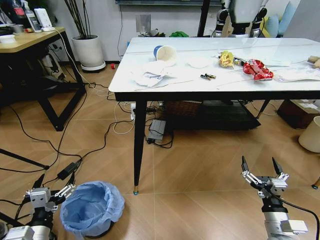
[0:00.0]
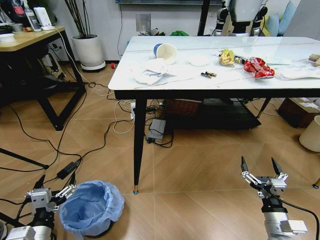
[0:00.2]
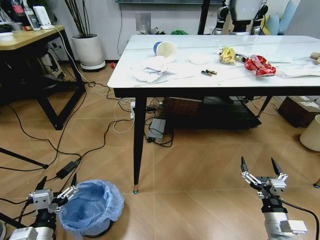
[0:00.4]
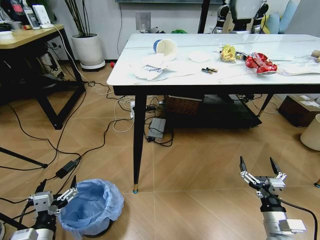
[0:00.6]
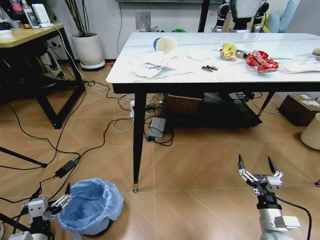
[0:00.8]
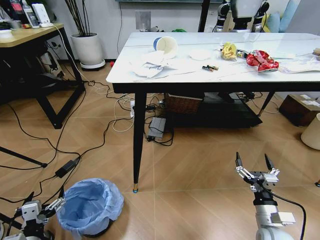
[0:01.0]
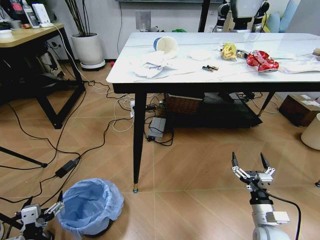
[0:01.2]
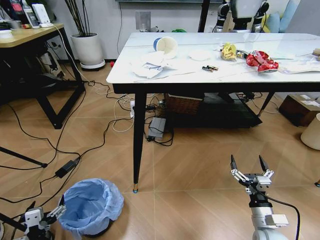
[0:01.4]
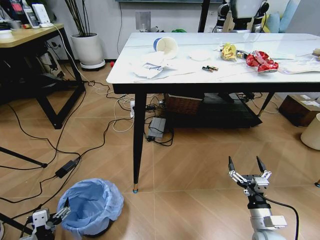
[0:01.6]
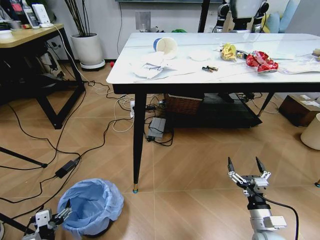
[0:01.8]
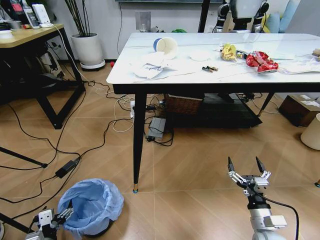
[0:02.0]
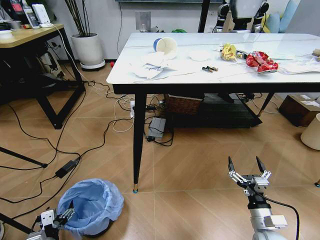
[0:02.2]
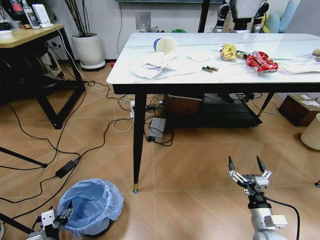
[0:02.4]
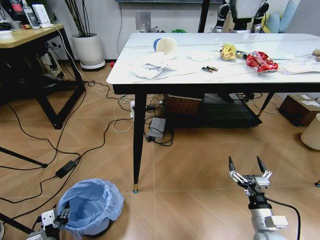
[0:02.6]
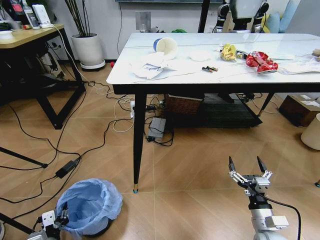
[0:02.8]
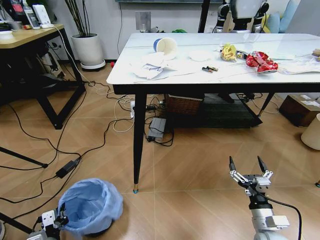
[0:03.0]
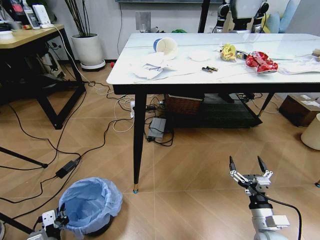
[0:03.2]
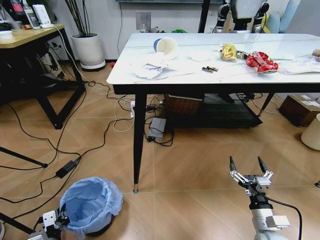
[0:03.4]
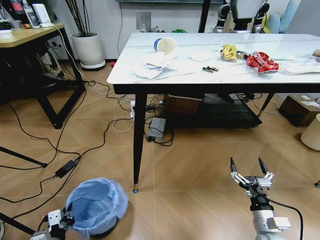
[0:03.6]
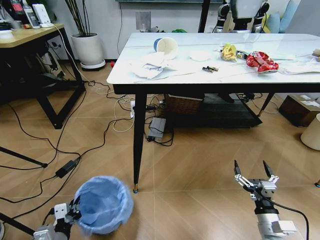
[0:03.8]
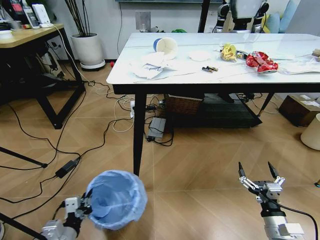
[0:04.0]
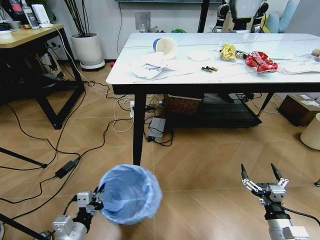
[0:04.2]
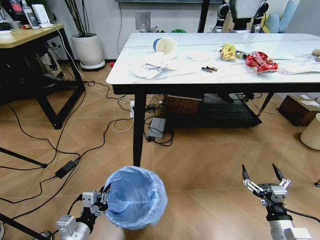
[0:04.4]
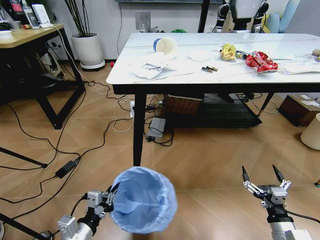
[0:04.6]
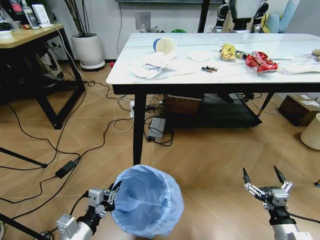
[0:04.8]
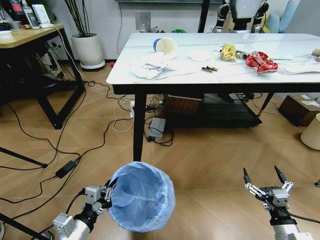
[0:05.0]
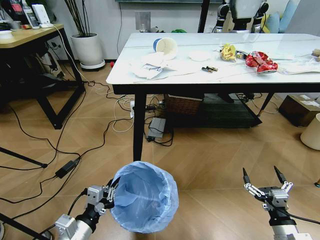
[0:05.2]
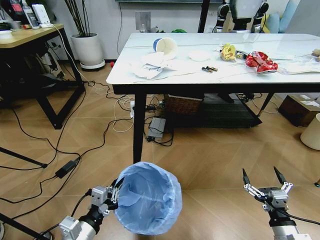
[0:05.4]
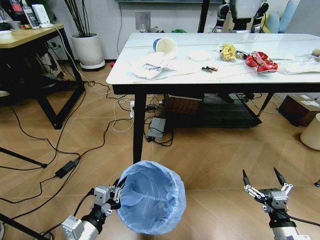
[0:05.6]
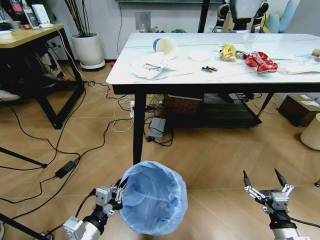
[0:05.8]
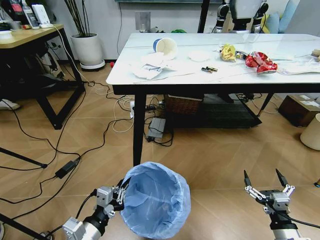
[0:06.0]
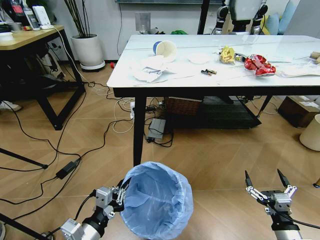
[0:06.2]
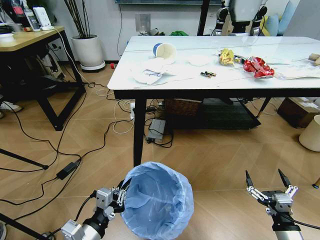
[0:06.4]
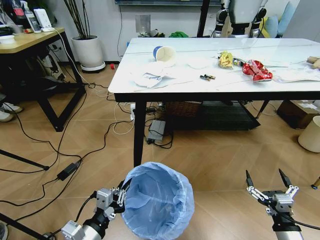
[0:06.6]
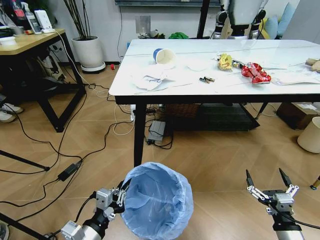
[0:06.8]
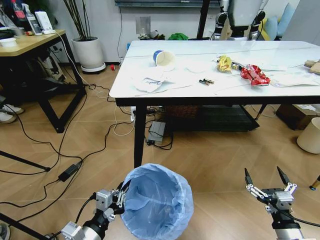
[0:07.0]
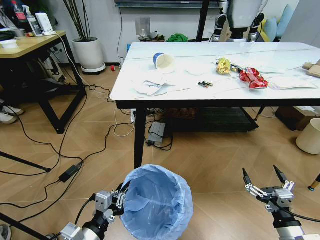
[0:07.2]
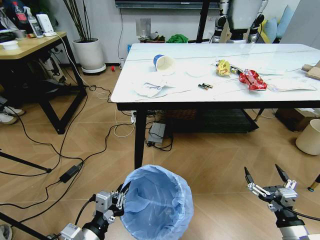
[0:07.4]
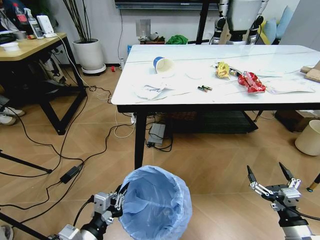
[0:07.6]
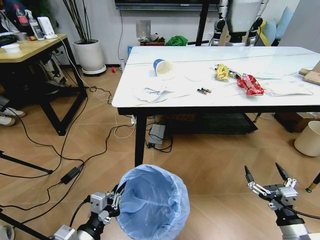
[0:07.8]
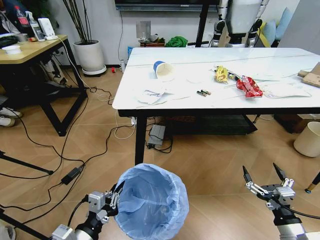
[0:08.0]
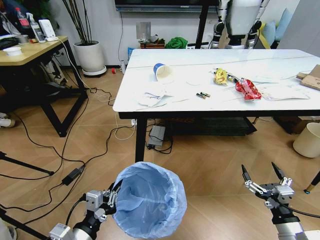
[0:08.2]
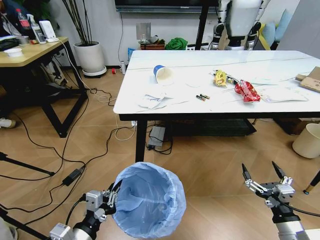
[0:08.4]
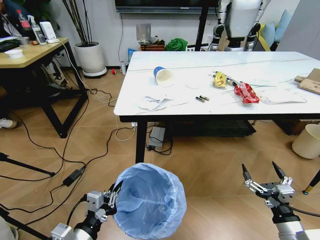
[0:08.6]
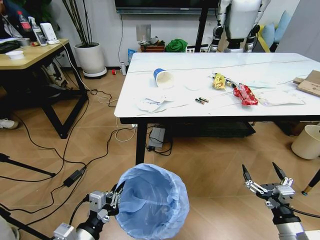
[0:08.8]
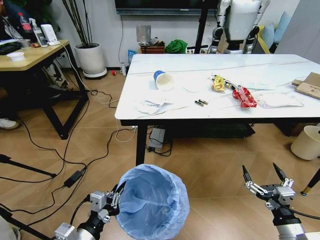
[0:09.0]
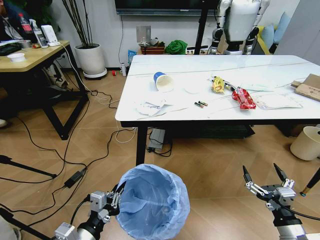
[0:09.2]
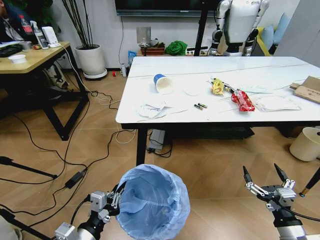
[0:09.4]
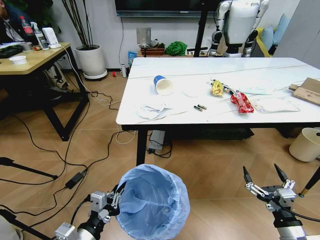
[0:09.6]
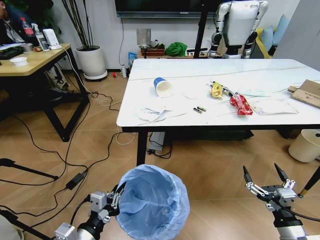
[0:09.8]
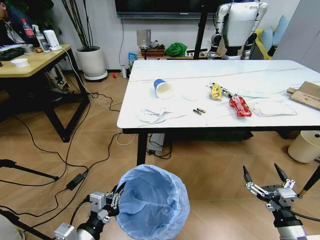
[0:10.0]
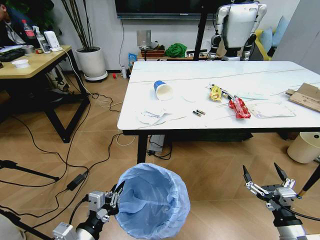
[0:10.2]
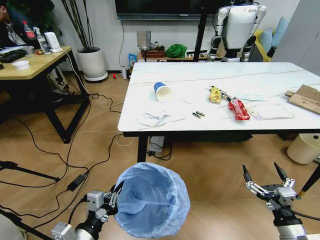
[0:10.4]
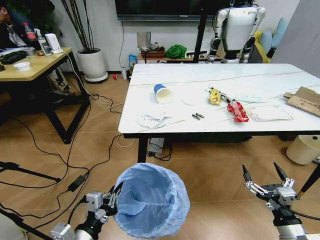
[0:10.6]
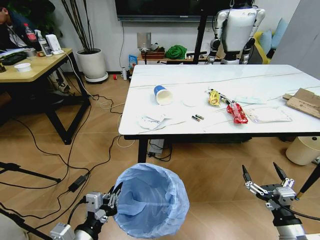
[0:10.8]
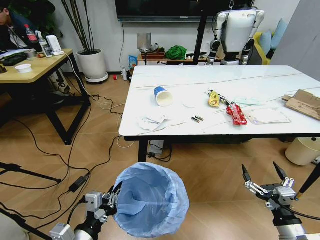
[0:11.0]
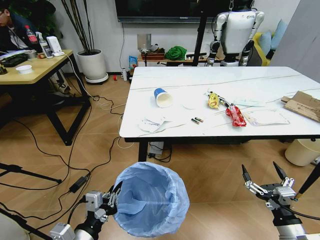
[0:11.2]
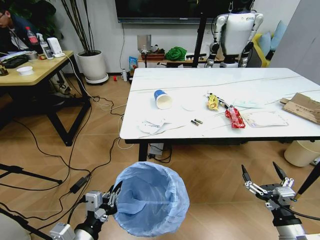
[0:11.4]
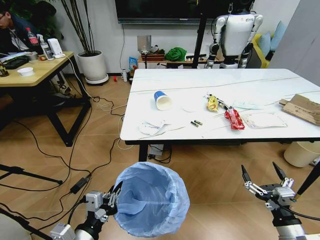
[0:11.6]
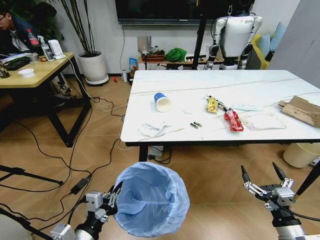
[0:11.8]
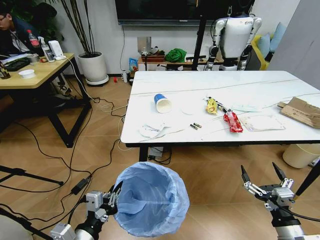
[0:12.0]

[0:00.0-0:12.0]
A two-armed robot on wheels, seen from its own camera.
Task of the whole recording: Pick up the trash bin and place the trash from the table into it.
0:00.0 to 0:01.6: The left gripper moves downward, roughly 10 cm.
0:01.6 to 0:03.0: The left gripper closes up.
0:03.0 to 0:04.4: The left gripper moves to the right and upward, about 15 cm. The right gripper changes place by roughly 5 cm.
0:04.4 to 0:06.0: The left gripper heads upward, covering roughly 5 cm.

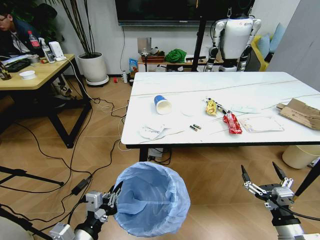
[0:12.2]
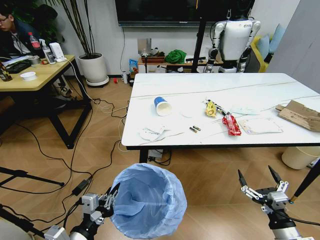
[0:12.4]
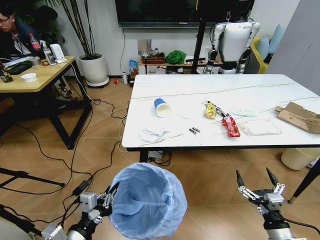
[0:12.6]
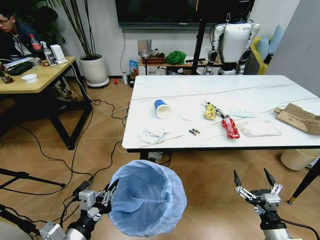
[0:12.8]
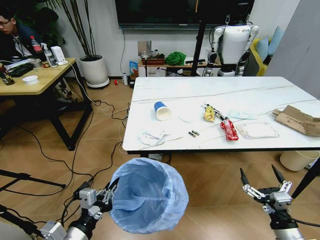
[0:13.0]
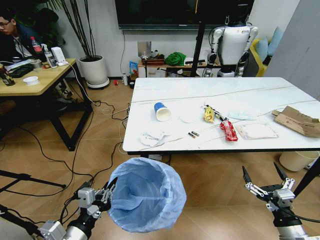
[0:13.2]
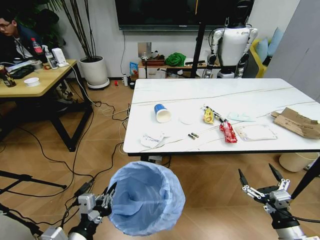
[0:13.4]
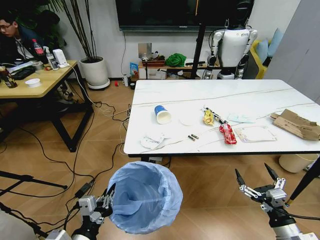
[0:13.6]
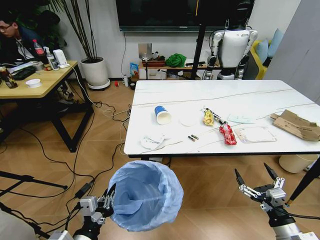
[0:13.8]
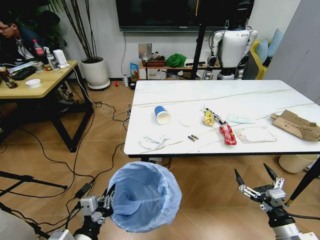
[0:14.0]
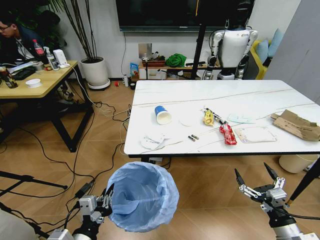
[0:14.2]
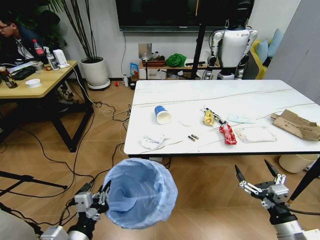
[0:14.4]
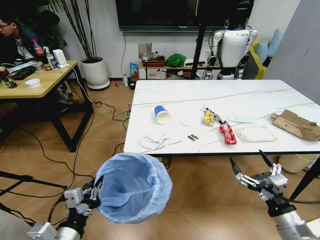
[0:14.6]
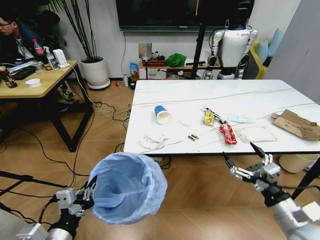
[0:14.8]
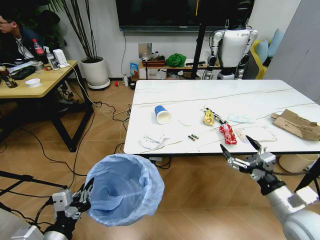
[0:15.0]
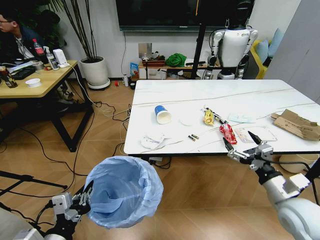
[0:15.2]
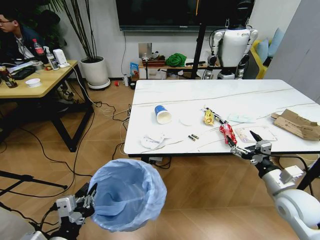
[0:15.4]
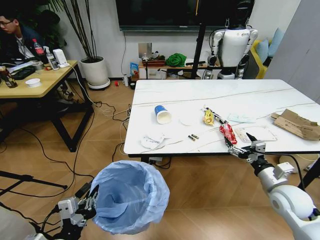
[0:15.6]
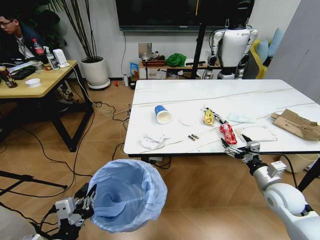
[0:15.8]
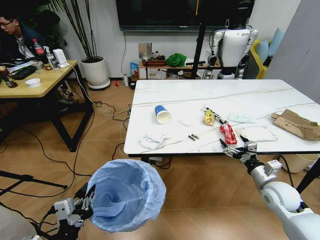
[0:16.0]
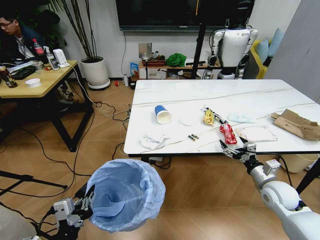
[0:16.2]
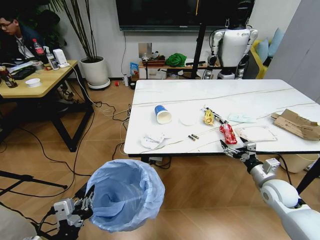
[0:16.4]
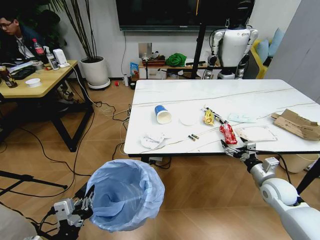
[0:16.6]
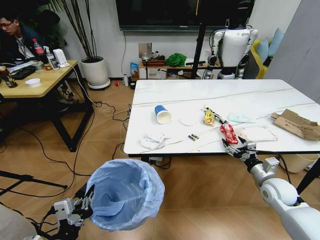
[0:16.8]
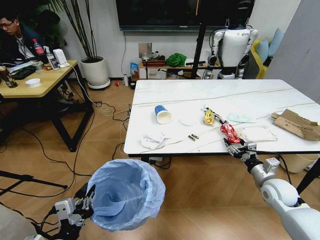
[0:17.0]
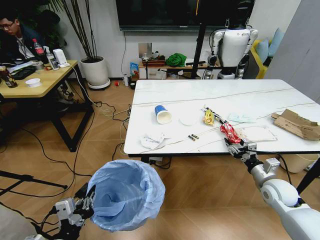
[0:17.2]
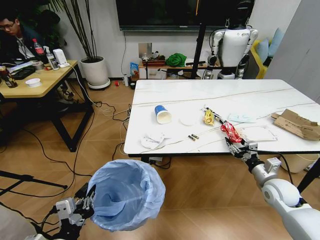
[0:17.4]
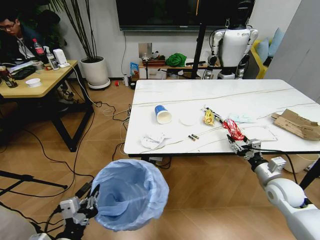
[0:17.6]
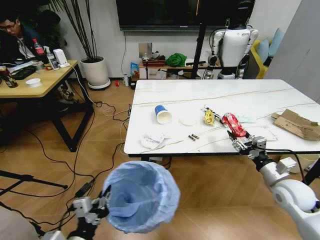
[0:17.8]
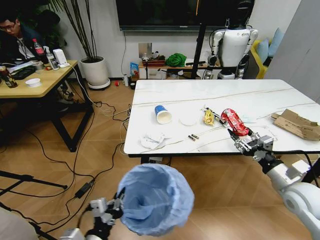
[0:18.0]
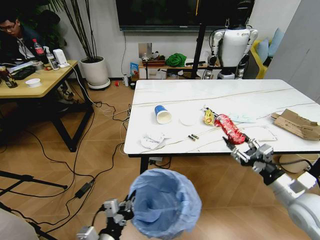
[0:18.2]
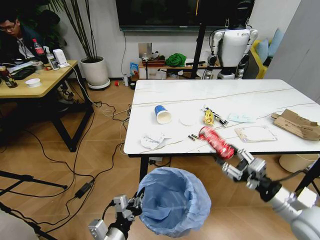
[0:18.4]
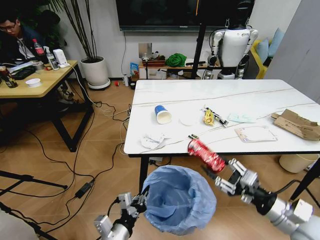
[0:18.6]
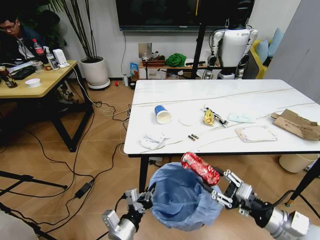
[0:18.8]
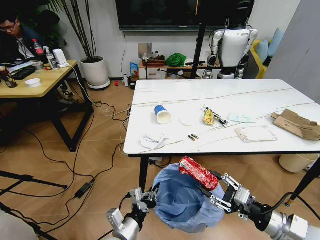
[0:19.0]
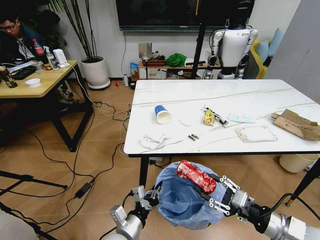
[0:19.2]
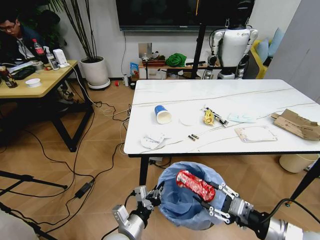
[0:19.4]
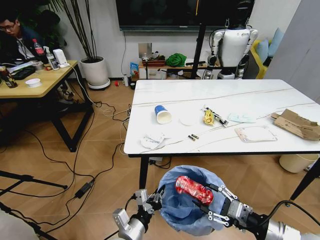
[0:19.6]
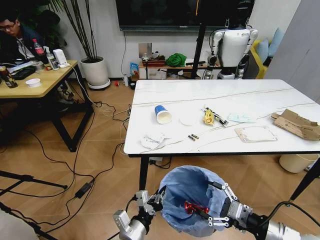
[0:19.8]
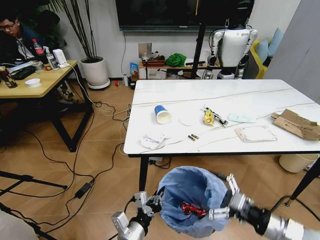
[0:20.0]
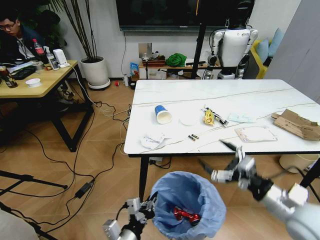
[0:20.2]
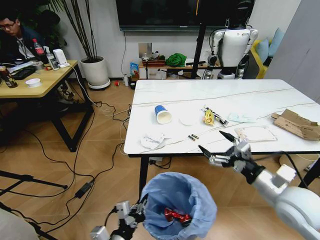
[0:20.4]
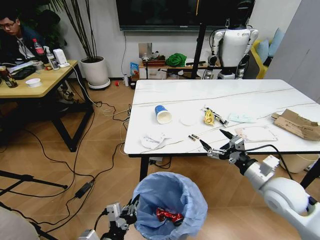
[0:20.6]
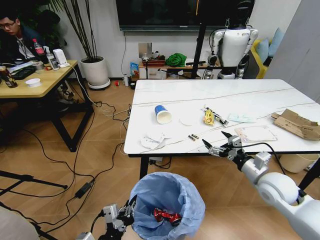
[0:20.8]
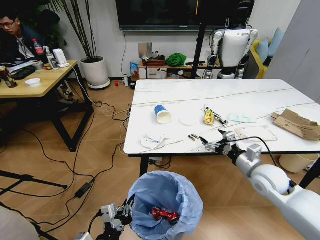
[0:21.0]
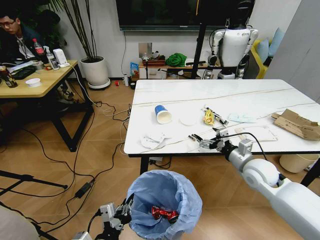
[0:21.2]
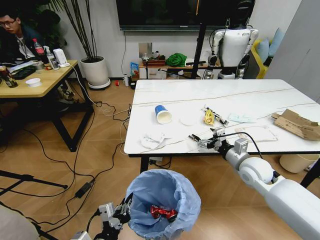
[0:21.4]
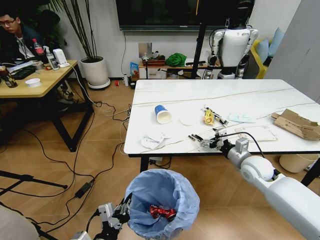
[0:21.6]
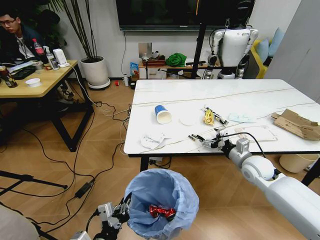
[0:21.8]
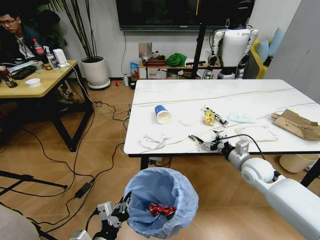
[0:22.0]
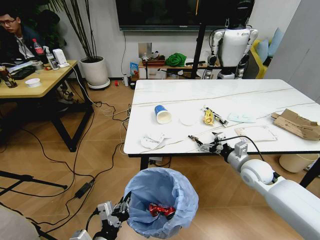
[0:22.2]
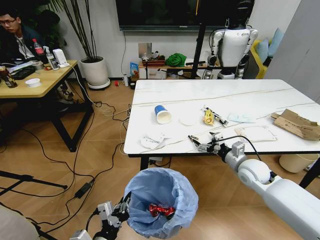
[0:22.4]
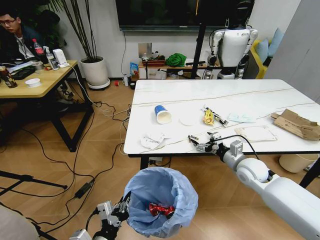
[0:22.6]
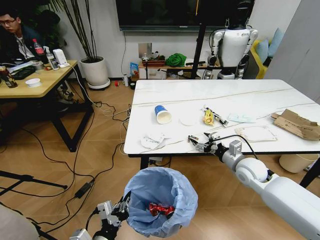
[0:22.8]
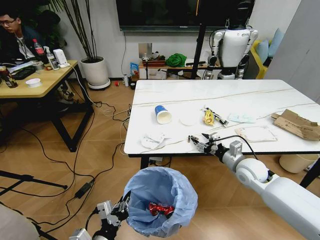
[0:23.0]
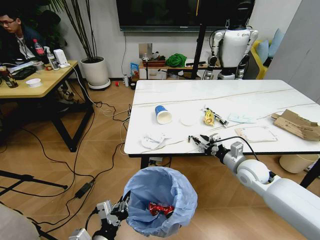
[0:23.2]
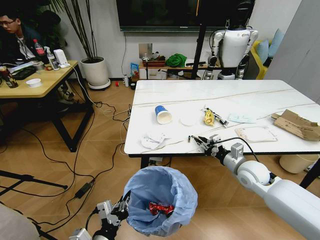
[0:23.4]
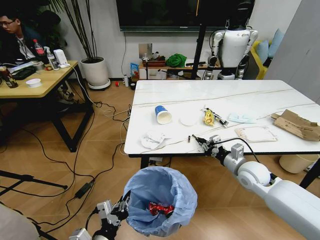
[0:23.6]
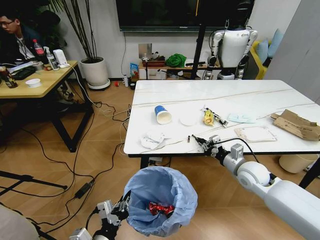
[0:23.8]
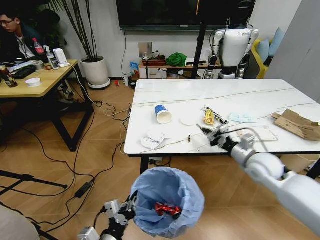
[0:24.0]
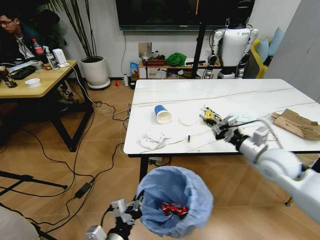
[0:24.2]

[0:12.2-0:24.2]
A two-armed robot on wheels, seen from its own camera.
Task of the whole recording: Pick up the trash bin and place the trash from the table into it.
0:13.8 to 0:15.2: The right gripper shifts about 15 cm forward and upward; the left gripper moves some 5 cm.
0:15.2 to 0:16.6: The right gripper moves forward and downward, roughly 15 cm.
0:16.6 to 0:18.2: The left gripper is displaced to the right and downward by approximately 10 cm. Meanwhile the right gripper travels upward and backward by about 15 cm, and closes.
0:18.2 to 0:19.8: The right gripper goes some 10 cm backward and to the left, and opens; the left gripper moves to the right, roughly 5 cm.
0:19.8 to 0:21.2: The right gripper travels forward by roughly 20 cm, while the left gripper moves to the left and backward, some 10 cm.
0:21.2 to 0:22.6: The grippers make only small movements.
0:22.6 to 0:24.2: The right gripper moves upward, roughly 10 cm, and closes.
